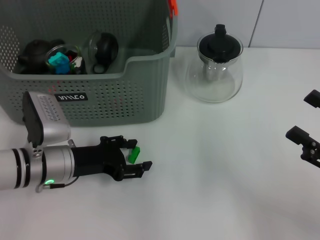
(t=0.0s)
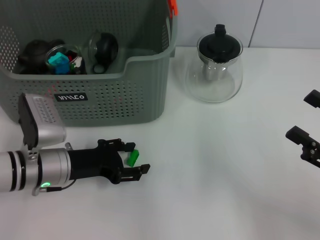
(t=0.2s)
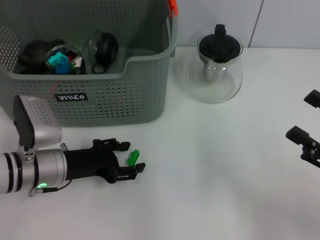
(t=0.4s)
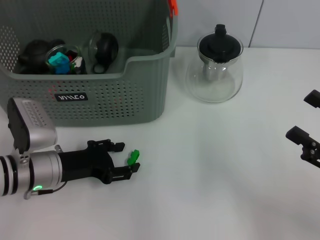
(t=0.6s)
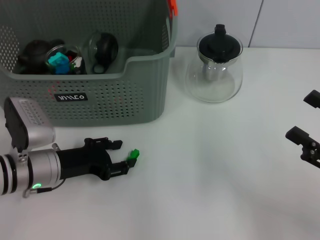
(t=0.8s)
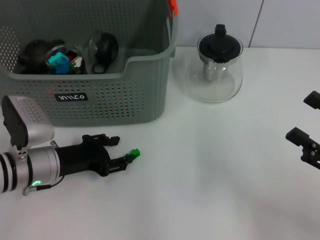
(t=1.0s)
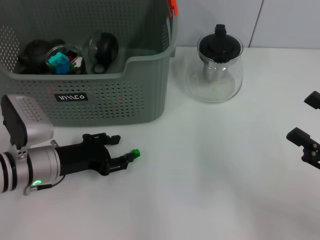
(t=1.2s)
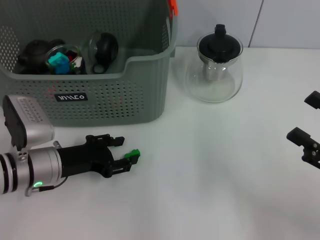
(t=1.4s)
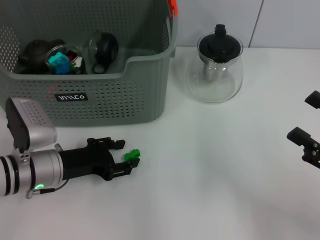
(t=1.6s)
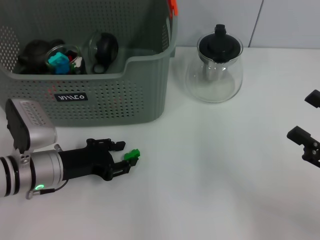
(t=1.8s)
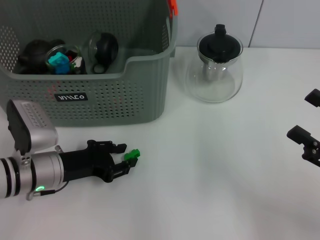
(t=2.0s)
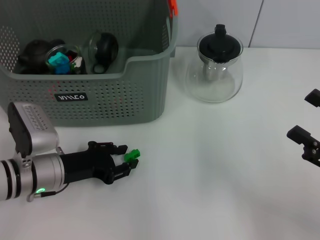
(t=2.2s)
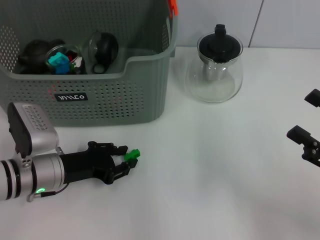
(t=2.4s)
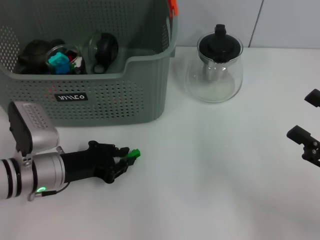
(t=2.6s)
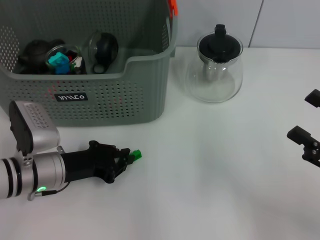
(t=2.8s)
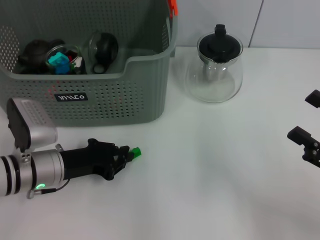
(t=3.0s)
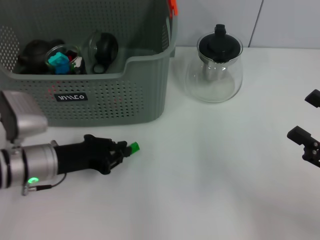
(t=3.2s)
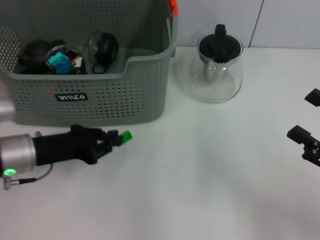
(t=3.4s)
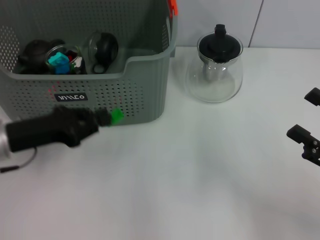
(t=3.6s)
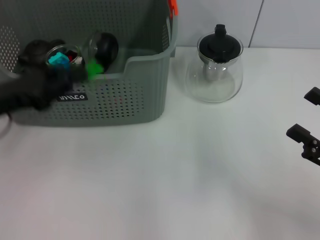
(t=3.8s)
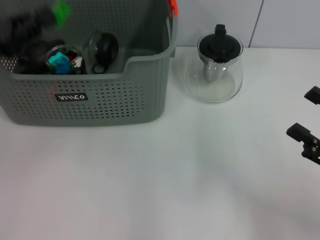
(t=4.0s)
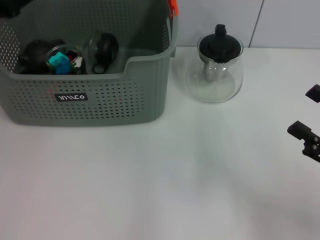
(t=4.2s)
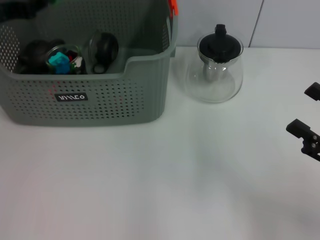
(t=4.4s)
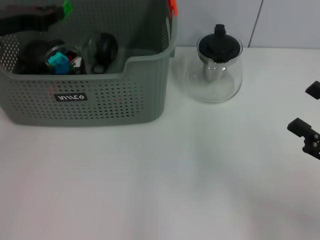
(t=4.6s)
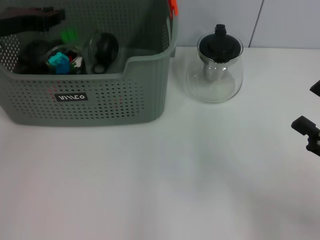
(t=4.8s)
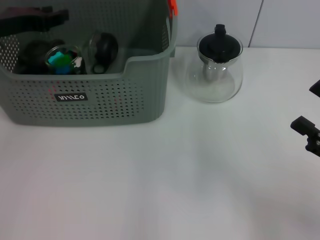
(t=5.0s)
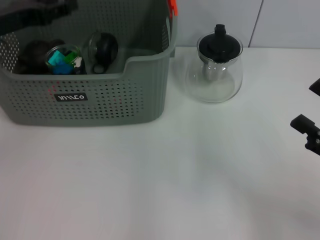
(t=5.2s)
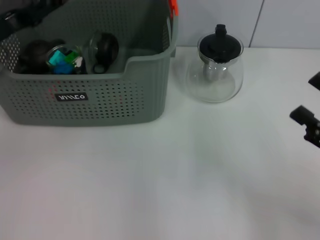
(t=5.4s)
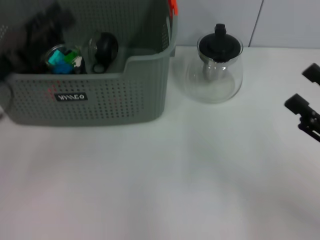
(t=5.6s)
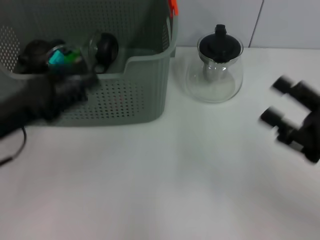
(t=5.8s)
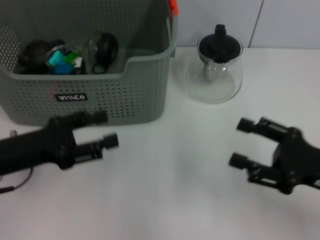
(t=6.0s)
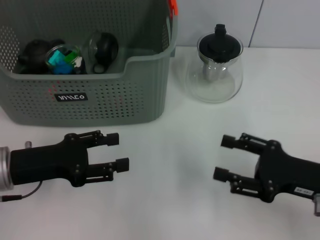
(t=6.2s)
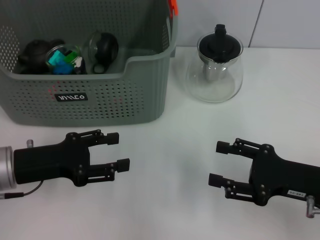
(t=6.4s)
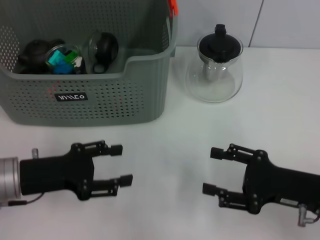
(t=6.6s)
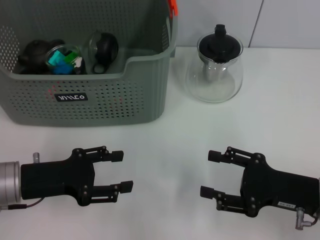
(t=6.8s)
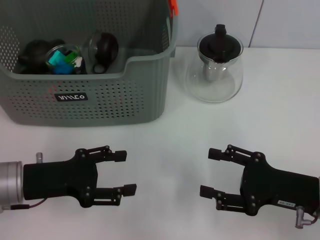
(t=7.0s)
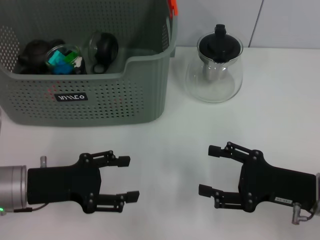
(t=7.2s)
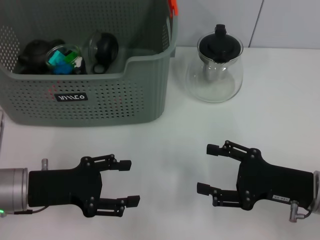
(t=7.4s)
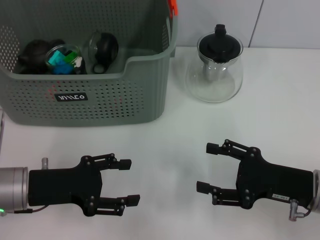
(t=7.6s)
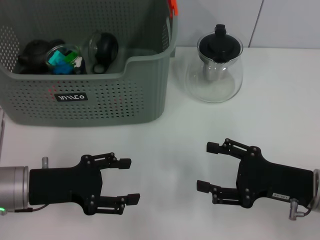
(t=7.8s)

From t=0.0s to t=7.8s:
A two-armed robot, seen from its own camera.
Task of the whole recording: pick up the teacup on the table and place it into the storage bin, pick up the block on the table and place it into the storage bin.
Step, from t=0.0s to t=2.6s: Grasp the green block with left gripper.
Step, from t=2.8s to t=5.4s: Place the green block in the storage box with left gripper.
From t=0.0s to t=1.6s: The grippers make only small movements.
From t=1.6s to t=3.2s: The left gripper closes.
From t=3.2s to t=4.6s: The left gripper heads upward, forward and to the left, covering about 20 cm.
From t=4.6s to t=6.2s: The left gripper travels backward and downward by some 15 cm, and opens. Meanwhile the right gripper is displaced to the left by some 5 cm.
From t=6.2s to t=7.8s: There are only small adjustments of the grippers.
